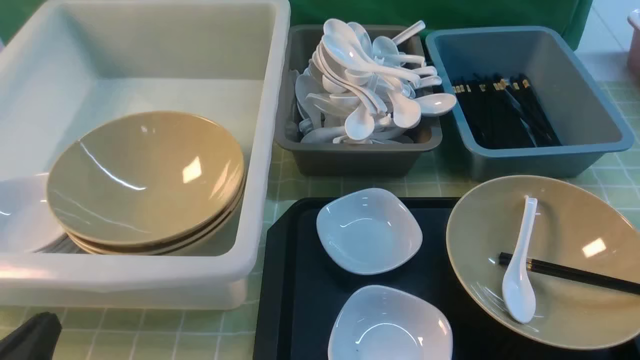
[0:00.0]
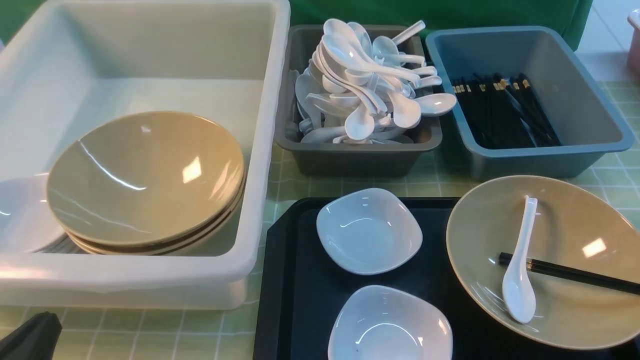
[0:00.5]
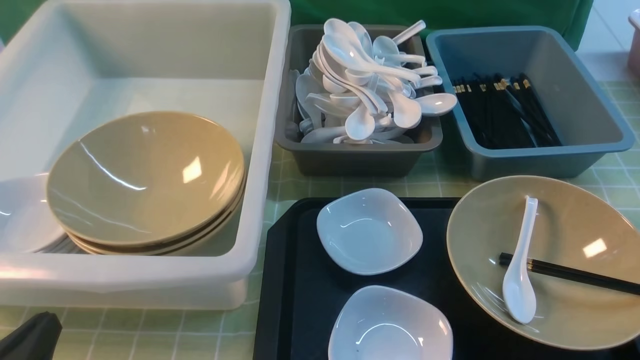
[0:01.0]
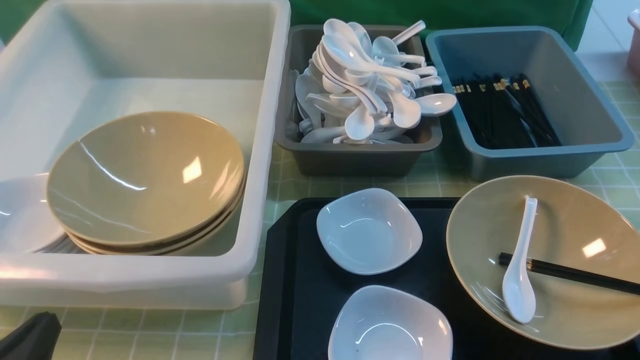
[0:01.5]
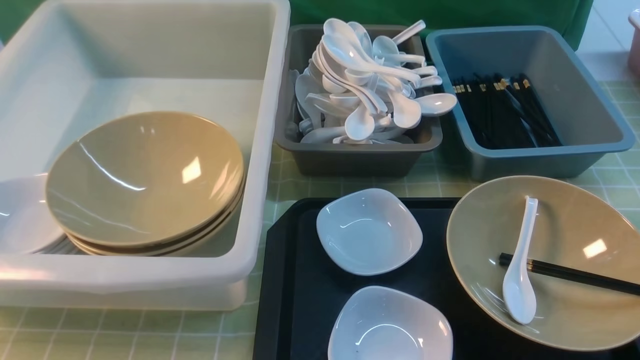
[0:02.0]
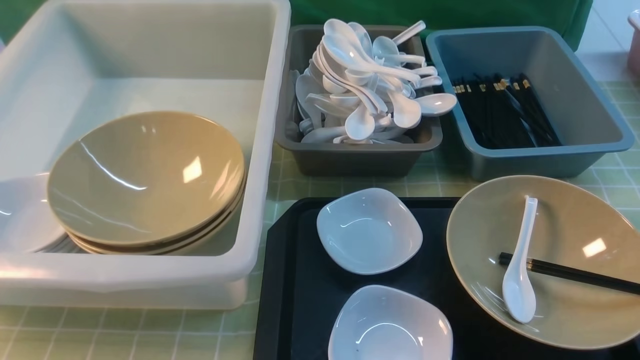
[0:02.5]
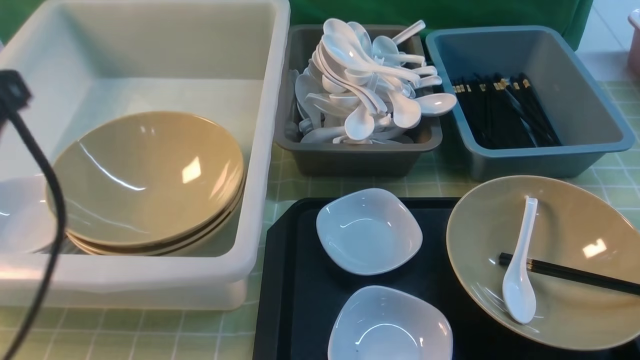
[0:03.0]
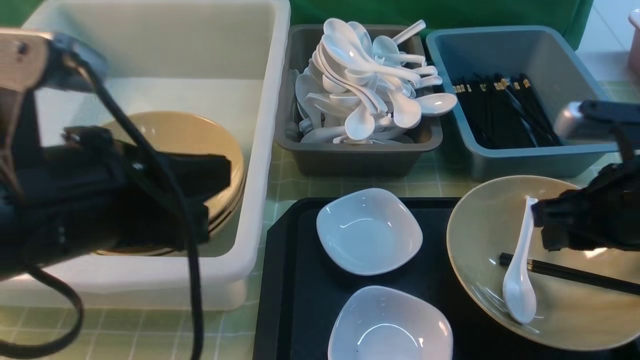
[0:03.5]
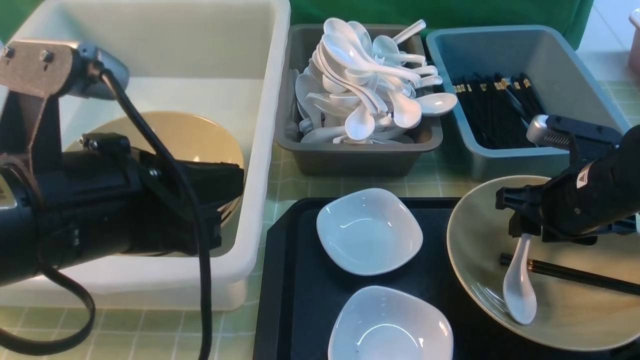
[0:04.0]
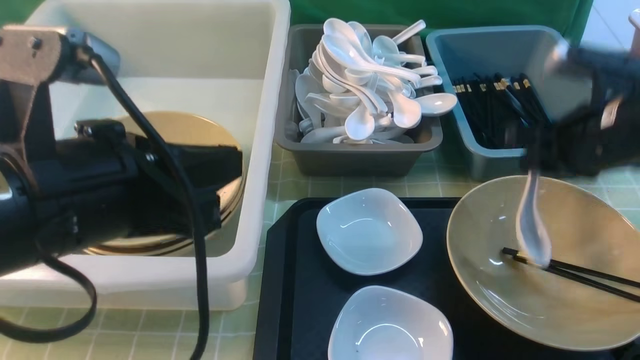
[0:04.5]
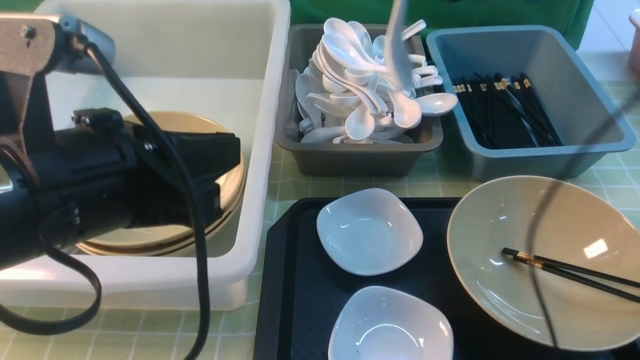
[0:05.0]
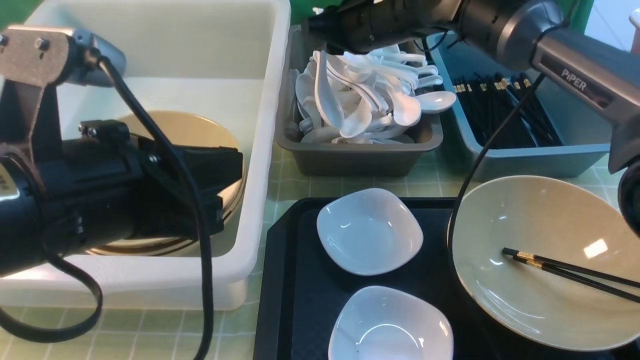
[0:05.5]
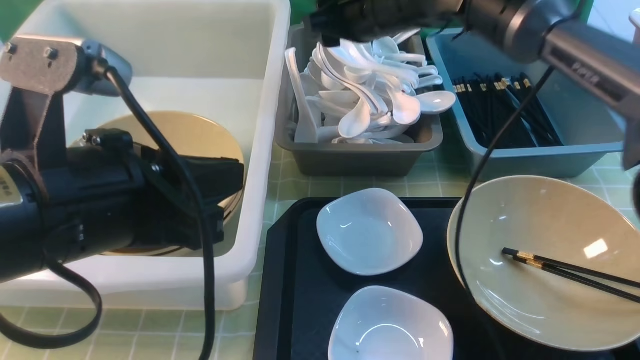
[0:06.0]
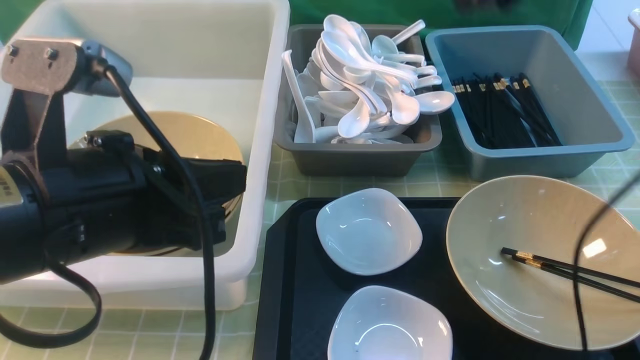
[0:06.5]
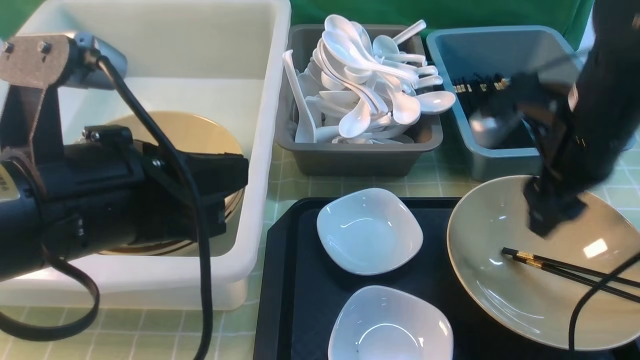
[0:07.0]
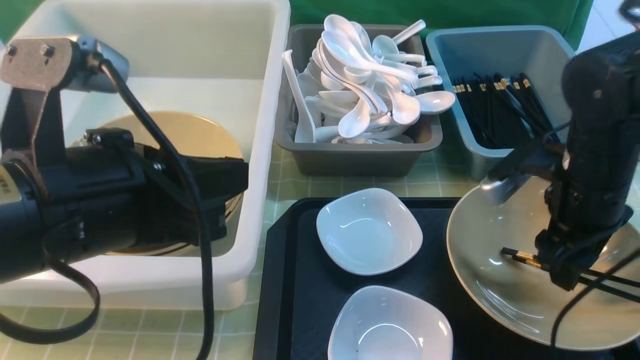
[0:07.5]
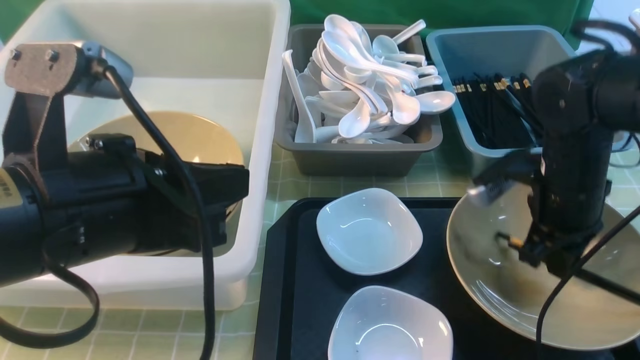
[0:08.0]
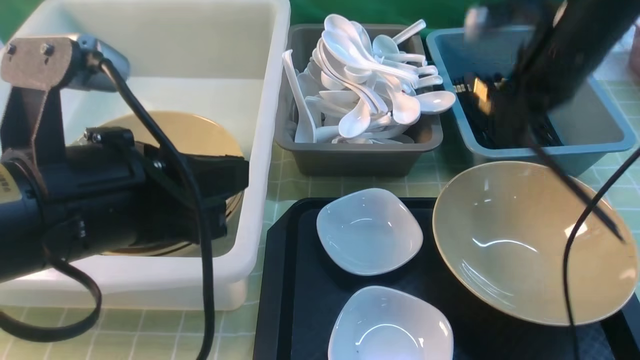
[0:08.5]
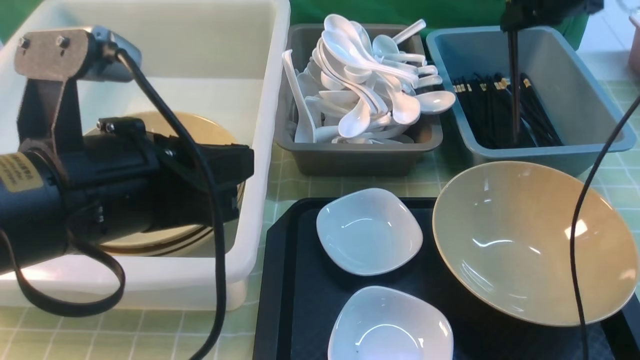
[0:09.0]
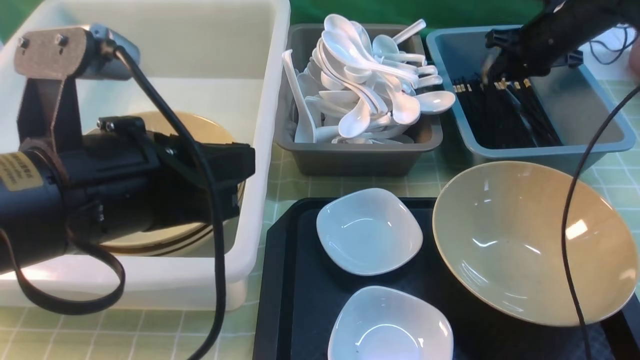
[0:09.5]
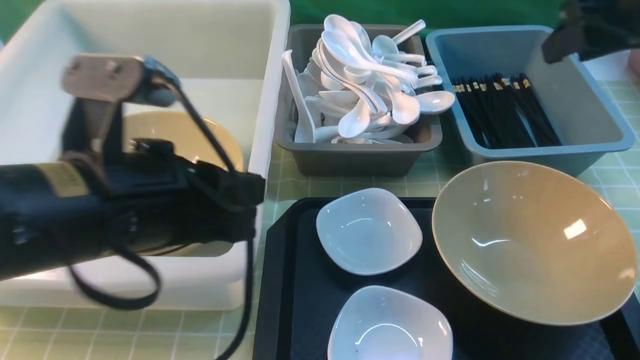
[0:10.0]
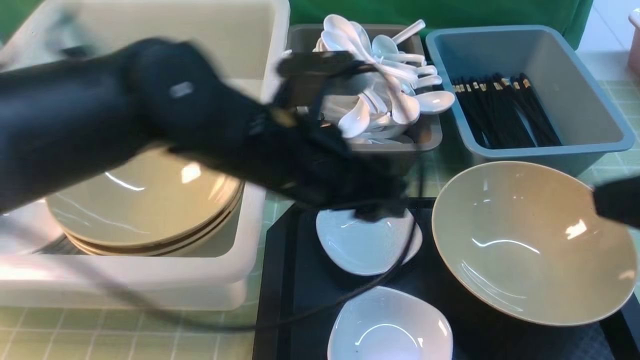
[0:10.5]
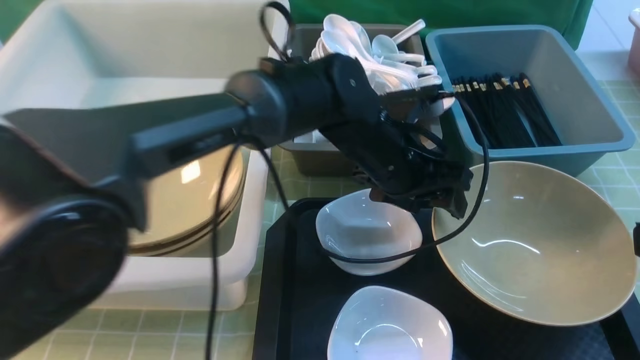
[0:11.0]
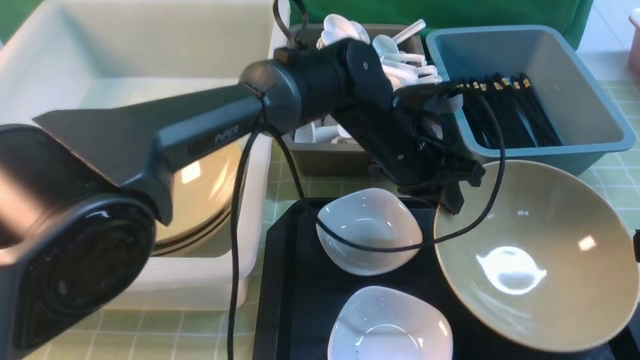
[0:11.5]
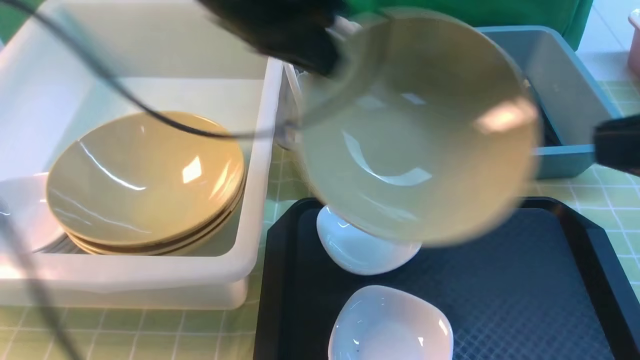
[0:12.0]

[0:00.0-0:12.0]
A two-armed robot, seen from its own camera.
Task of the whole recording: on green table put chopsticks spoon bowls plates into blue grey white boxes.
Step, 0:00.0 to 0:04.0: use the right arm to grab the soup spoon in the middle.
Step, 0:04.5 to 0:05.5: use the right arm to put the soup spoon into the small storage box in the middle.
Step, 0:06.0 to 0:08.0: use the right arm to grab the chopsticks.
Step, 0:08.5 to 0:09.5: use the right arm to put the chopsticks into the small storage box on the right.
Step, 0:10.0 to 0:11.5: use the left arm to grab the yellow noodle bowl on the left.
0:00.0 to 0:02.0: The left gripper goes some 5 cm upward.
0:02.0 to 0:04.0: The left gripper heads upward, to the right and forward, covering about 20 cm. Meanwhile the right gripper goes about 25 cm forward.
0:04.0 to 0:06.0: The right gripper heads forward, to the left and upward, covering about 25 cm.
0:06.0 to 0:08.0: The right gripper heads backward, to the right and downward, covering roughly 25 cm, and closes.
0:08.0 to 0:10.0: The right gripper moves upward, some 20 cm, travels forward and back again, some 20 cm each way, and opens.
0:10.0 to 0:12.0: The right gripper goes about 20 cm backward, and closes up. The left gripper is displaced forward and upward by roughly 15 cm, reaches some 20 cm to the right, then returns, and opens, then closes once more.

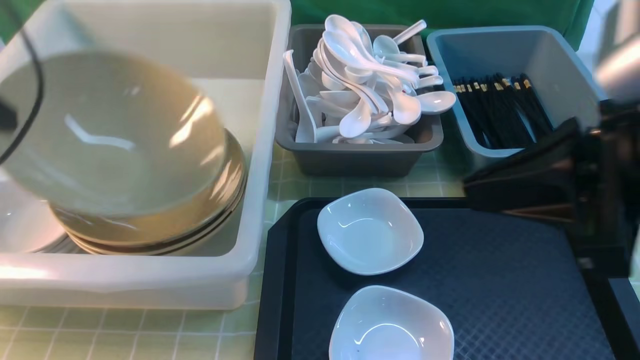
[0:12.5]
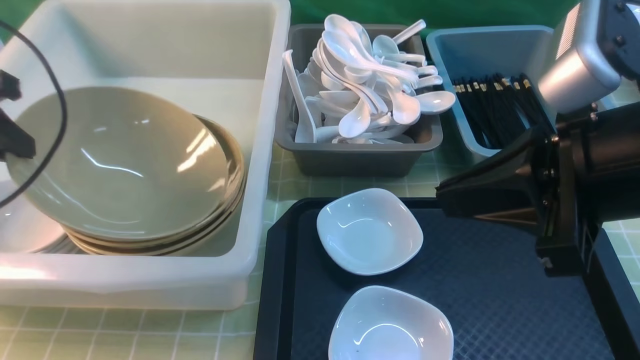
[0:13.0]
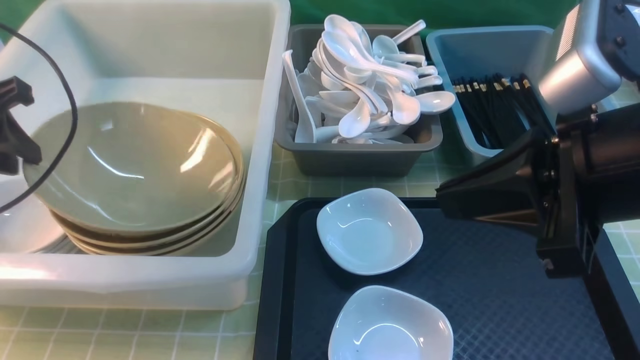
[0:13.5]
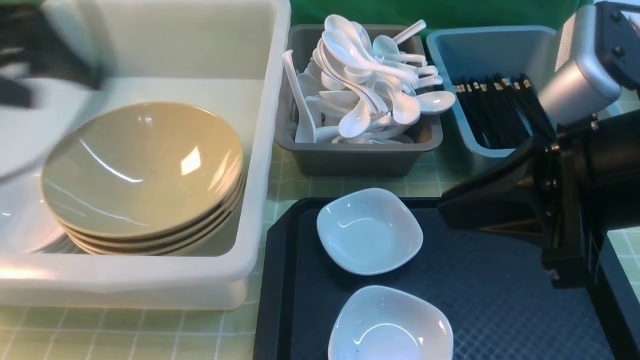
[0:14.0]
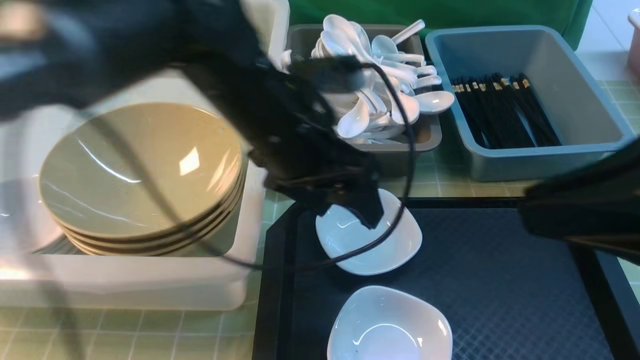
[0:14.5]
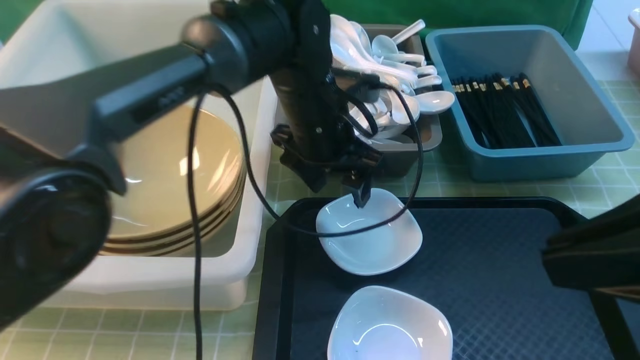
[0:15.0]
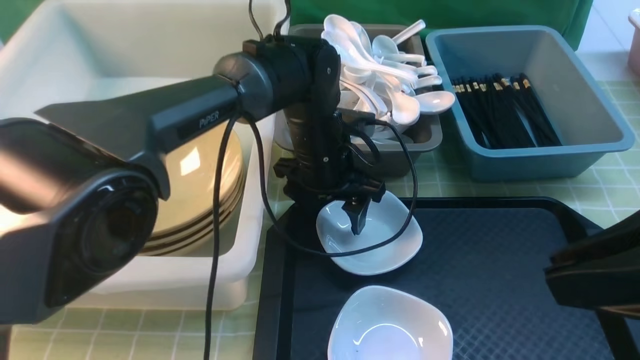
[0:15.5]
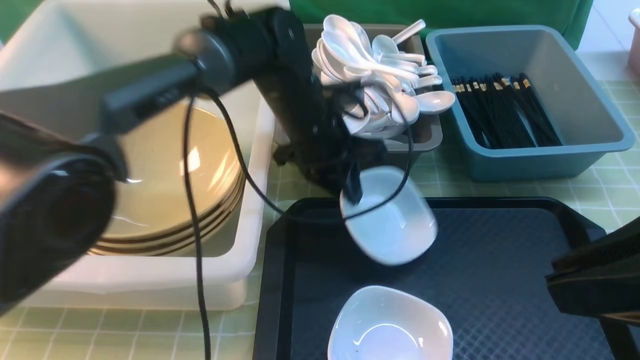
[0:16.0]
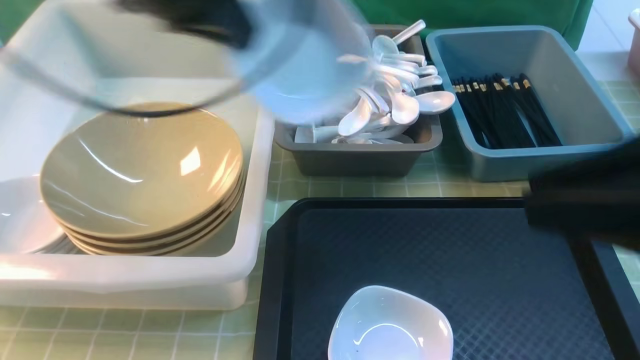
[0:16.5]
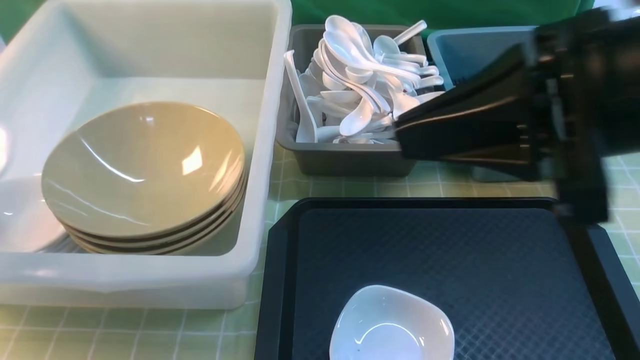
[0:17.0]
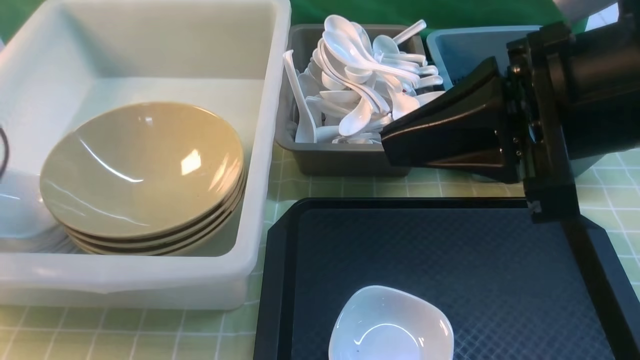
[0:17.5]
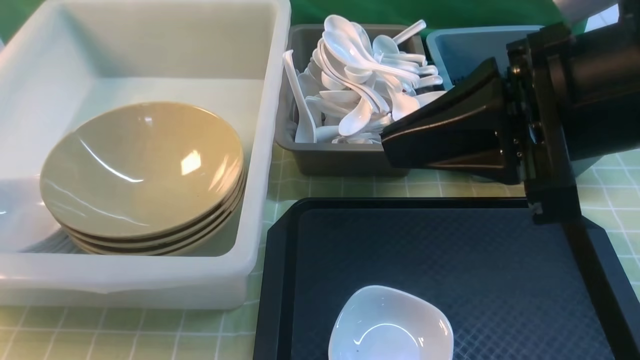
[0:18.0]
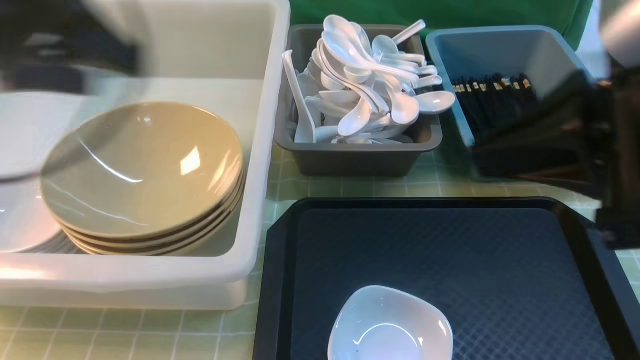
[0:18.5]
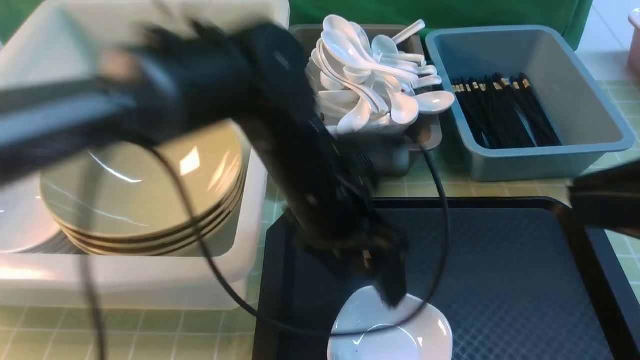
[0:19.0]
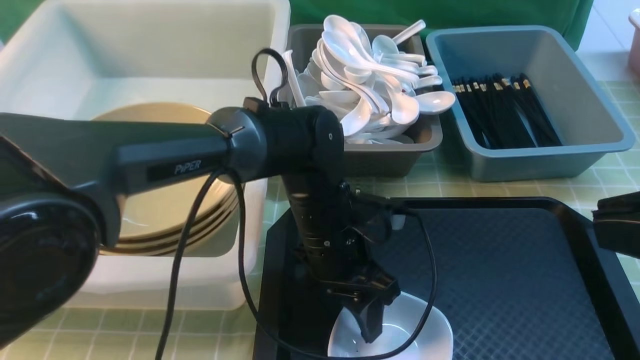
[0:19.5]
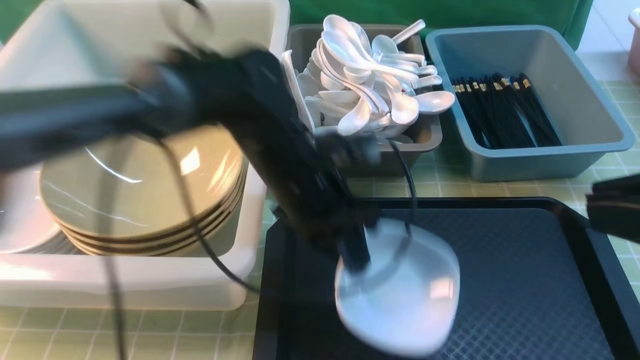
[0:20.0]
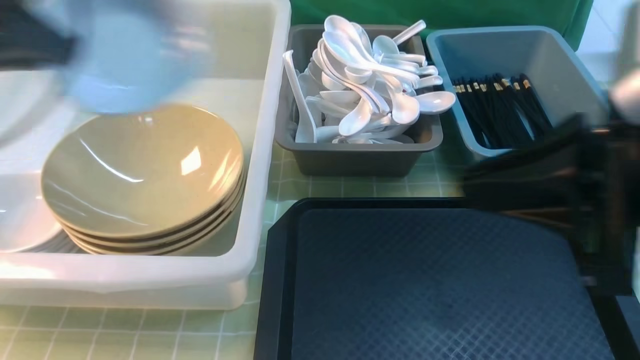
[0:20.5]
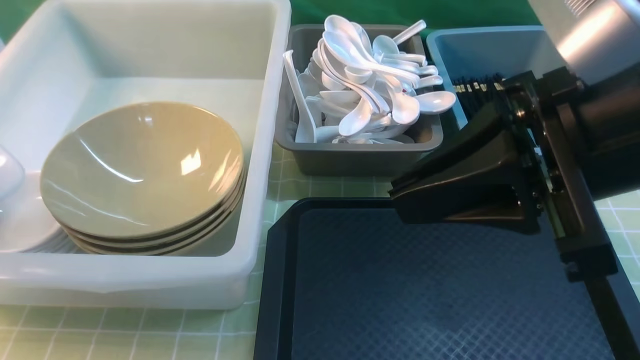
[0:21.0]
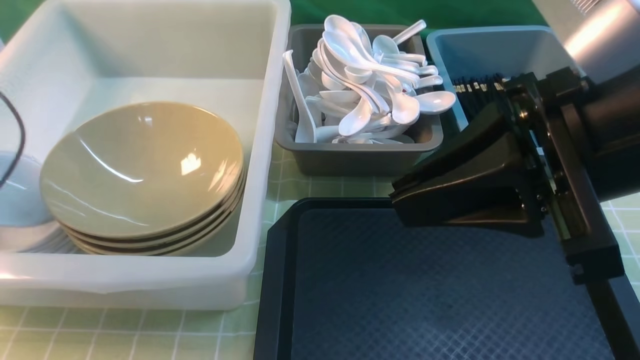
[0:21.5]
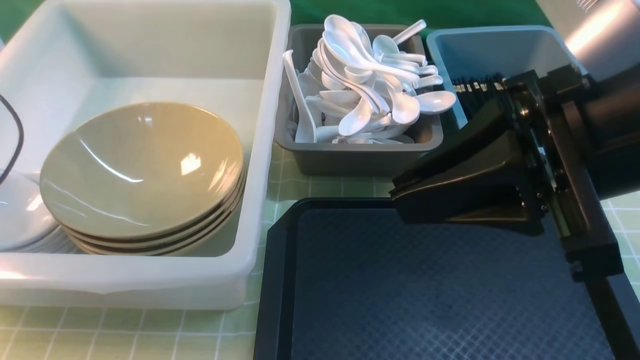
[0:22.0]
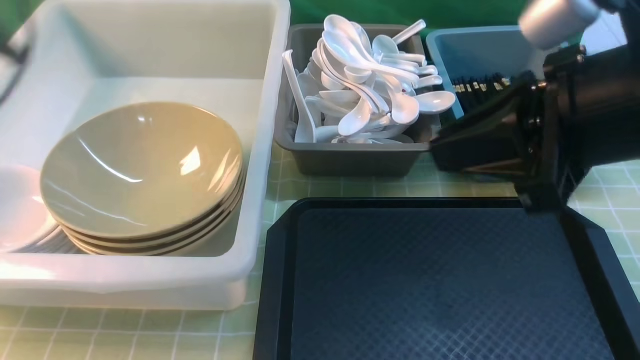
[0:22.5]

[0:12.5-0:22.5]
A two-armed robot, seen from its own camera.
Task of the whole recording: on green table put chopsticks spoon bowls plates into blue grey white boxes.
Step, 0:12.5 to 0:13.5: use the left arm to put the noodle bowl into the large storage box on the left.
Step, 0:14.0 to 0:15.5: use the left arm to grab the plate.
Step, 0:16.0 to 0:18.0: use the left arm to put the plate into the large storage box on the left.
Step, 0:18.5 to 0:20.0: use the left arm to grab the plate.
Step, 0:20.5 to 0:22.5: use the left arm to put the plate into the large storage box on the left.
0:12.5 to 0:14.5: The left gripper moves to the right, about 30 cm, and opens.
0:14.5 to 0:16.5: The left gripper travels to the left and upward by some 15 cm, and closes up.
0:16.5 to 0:18.5: The left gripper moves about 25 cm to the left and comes back, and opens.
0:18.5 to 0:20.5: The left gripper travels to the right and back again, some 20 cm each way, and closes its fingers.
0:20.5 to 0:22.5: The left gripper goes to the left and returns, about 10 cm each way, and opens.
